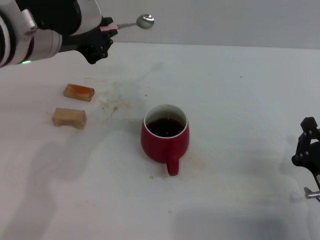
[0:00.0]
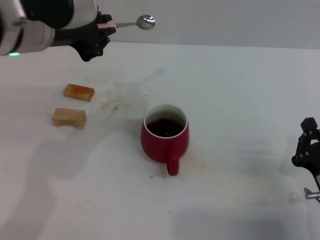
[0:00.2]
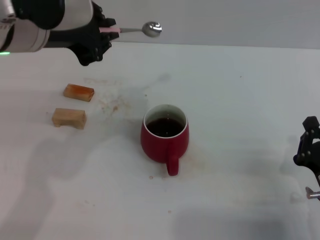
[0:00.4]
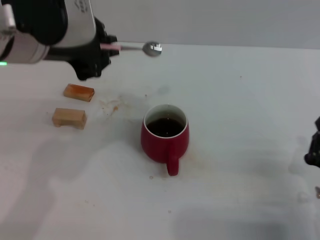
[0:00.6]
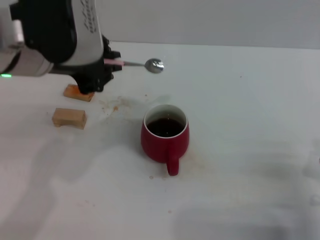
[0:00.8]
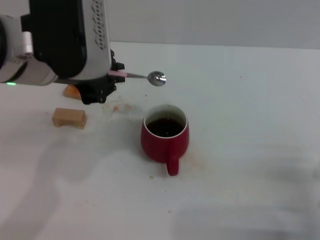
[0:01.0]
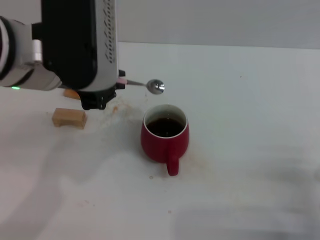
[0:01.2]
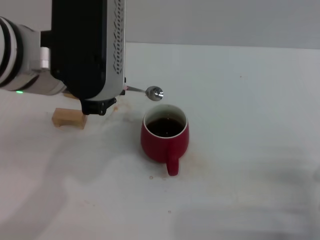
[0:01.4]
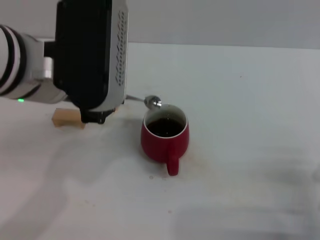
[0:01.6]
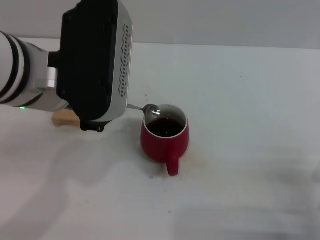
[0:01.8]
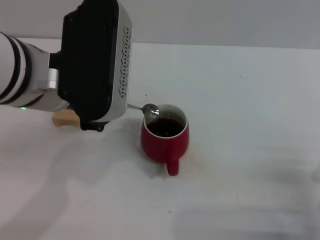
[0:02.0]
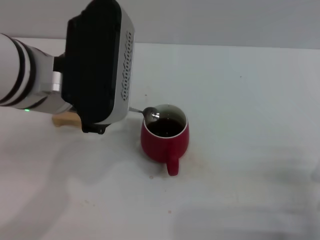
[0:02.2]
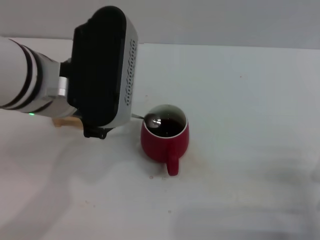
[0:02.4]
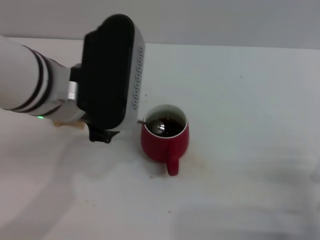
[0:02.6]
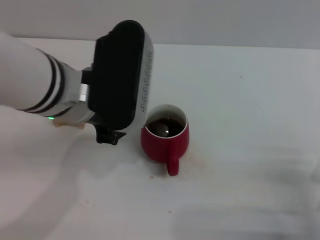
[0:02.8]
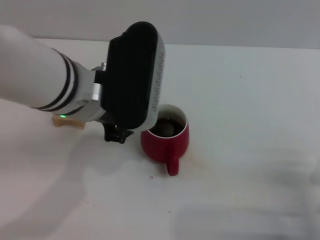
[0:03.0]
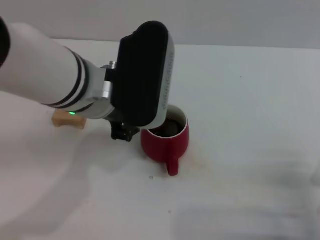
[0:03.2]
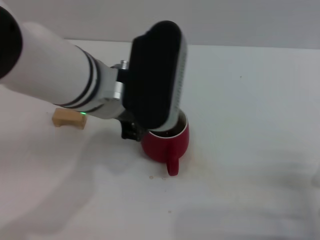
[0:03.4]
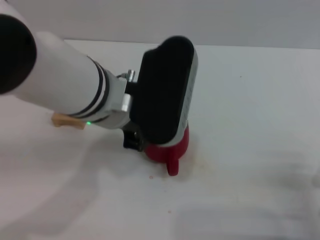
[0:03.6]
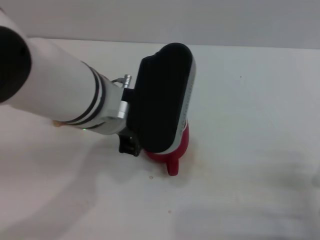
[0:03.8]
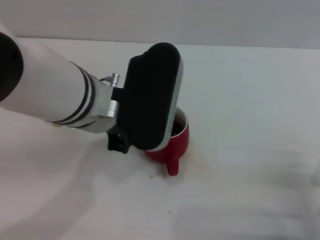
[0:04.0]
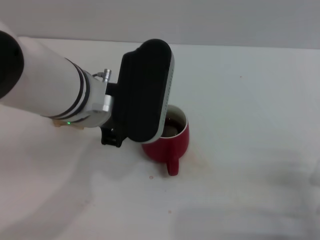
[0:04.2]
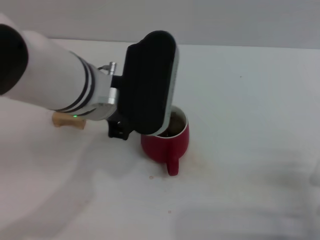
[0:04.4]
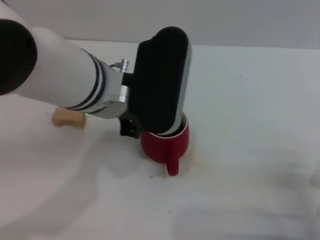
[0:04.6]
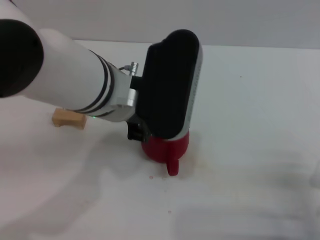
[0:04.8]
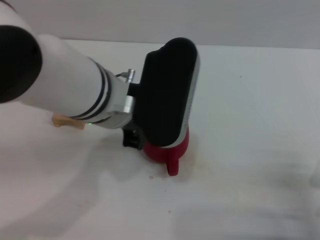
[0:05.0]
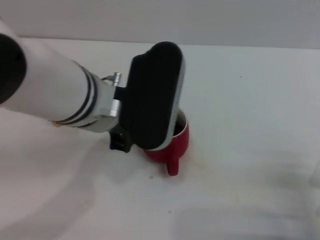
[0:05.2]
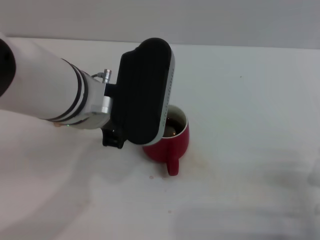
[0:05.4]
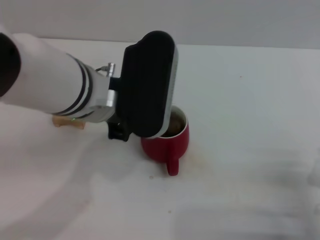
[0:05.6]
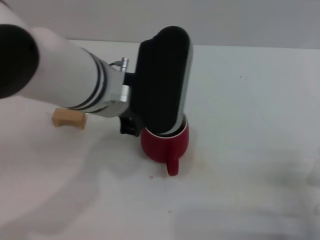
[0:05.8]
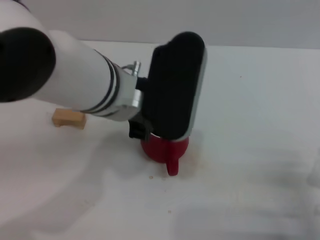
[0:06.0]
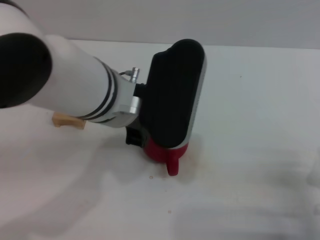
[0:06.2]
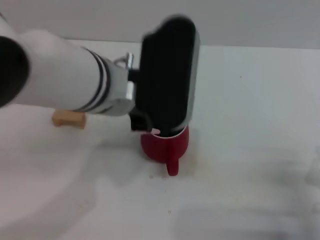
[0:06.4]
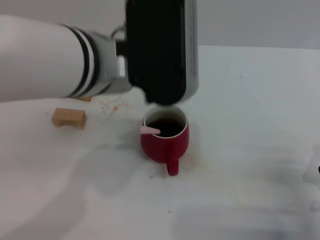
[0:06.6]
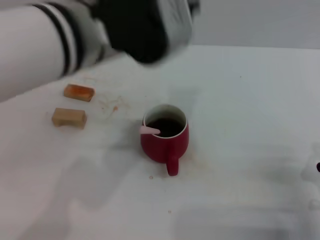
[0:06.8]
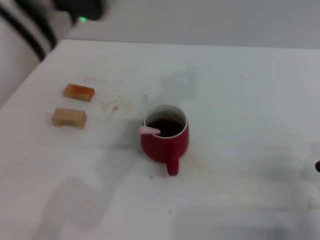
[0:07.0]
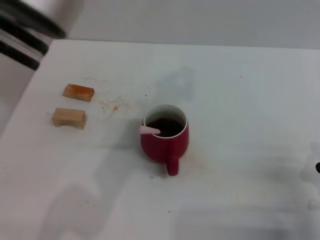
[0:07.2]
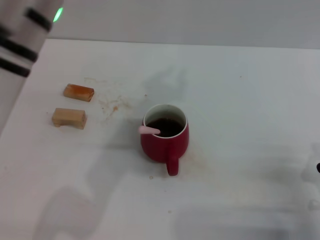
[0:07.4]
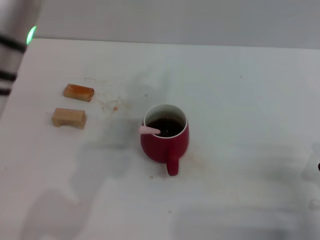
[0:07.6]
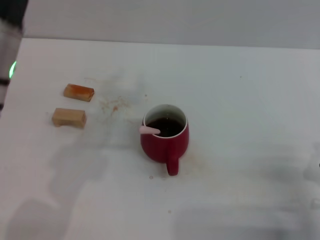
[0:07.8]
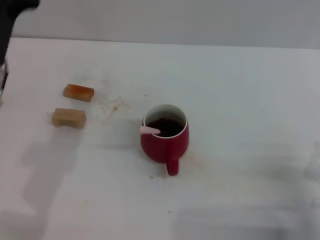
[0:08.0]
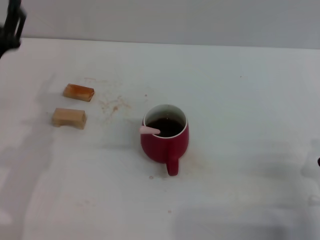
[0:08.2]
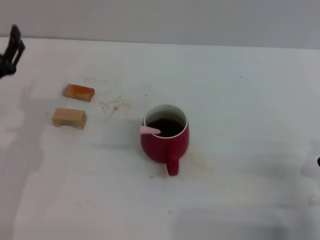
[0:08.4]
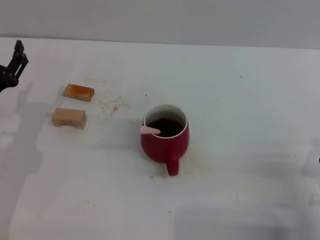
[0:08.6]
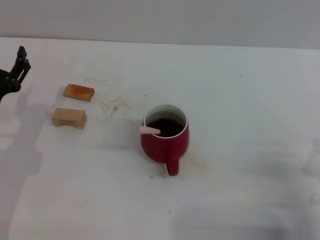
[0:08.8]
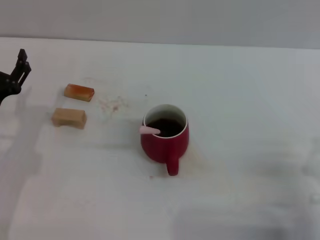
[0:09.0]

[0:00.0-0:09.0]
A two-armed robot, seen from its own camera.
Task of the whole recording: Move the red cup to the center, lift the pink spoon, stir it three times in the cup, and put the spoon into the cup.
Step, 0:00.0 to 0:06.4: Stir the coffee in the cup with the left gripper.
0:00.0 to 0:01.6: The left gripper shifts by approximately 5 cm.
0:01.6 to 0:03.0: The left gripper shifts by some 5 cm.
0:03.0 to 0:06.0: There are only small adjustments of the grippers.
0:06.0 to 0:07.6: The left gripper is displaced to the left and upward by approximately 10 cm.
0:07.6 to 0:09.0: The left gripper heads downward and to the left, covering about 25 cm, and opens up.

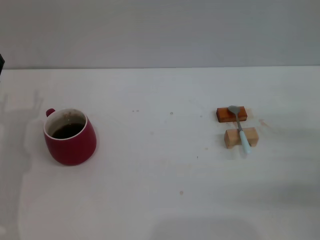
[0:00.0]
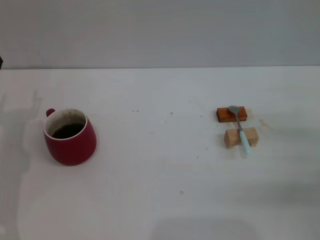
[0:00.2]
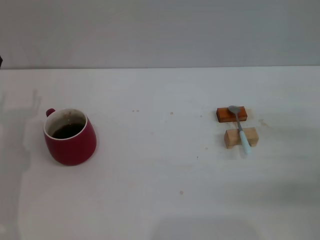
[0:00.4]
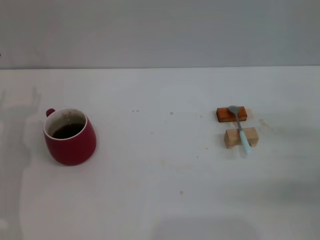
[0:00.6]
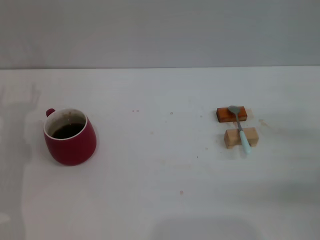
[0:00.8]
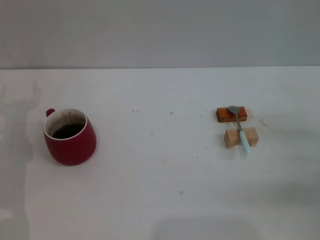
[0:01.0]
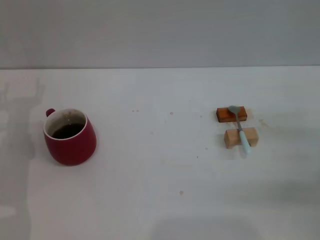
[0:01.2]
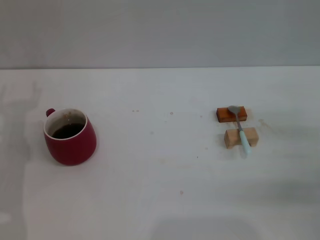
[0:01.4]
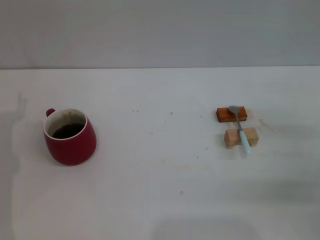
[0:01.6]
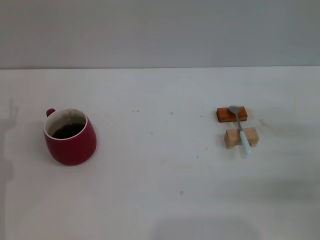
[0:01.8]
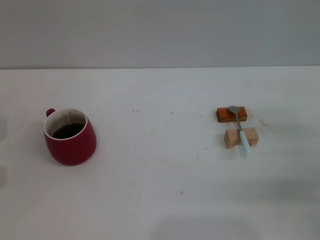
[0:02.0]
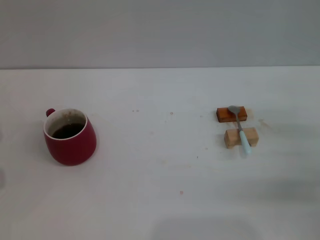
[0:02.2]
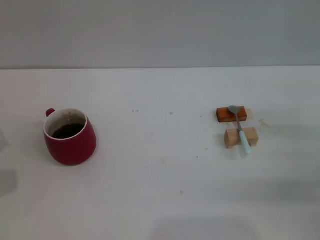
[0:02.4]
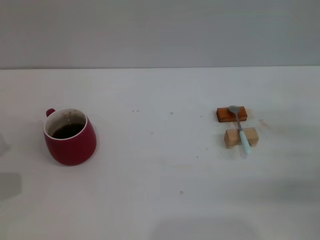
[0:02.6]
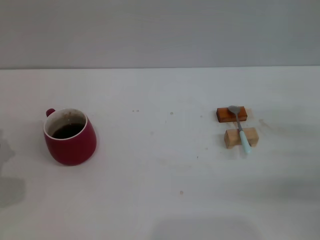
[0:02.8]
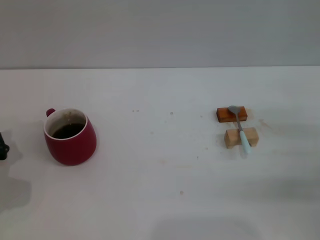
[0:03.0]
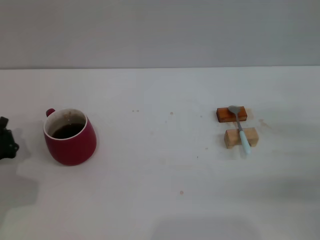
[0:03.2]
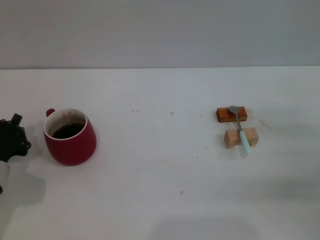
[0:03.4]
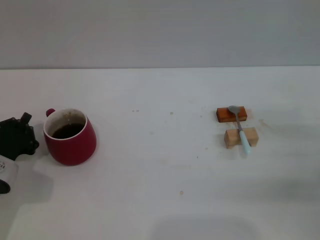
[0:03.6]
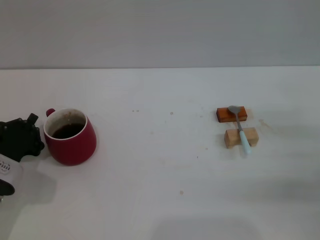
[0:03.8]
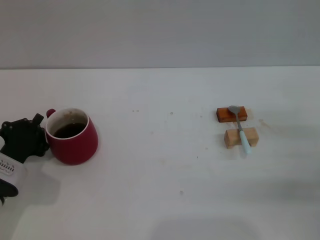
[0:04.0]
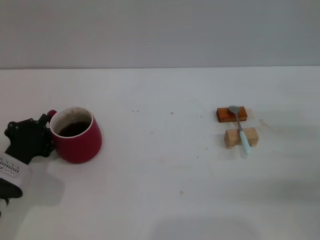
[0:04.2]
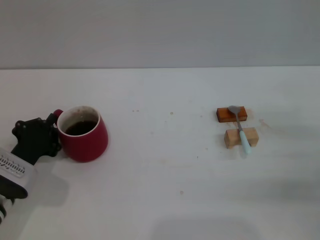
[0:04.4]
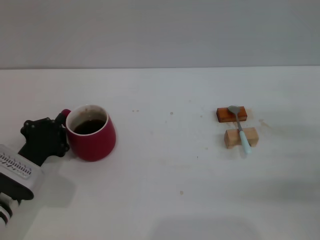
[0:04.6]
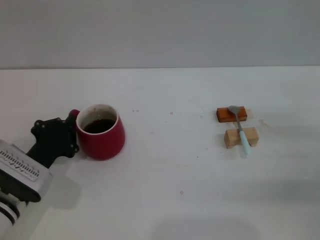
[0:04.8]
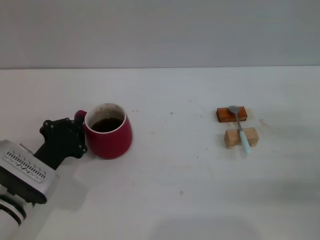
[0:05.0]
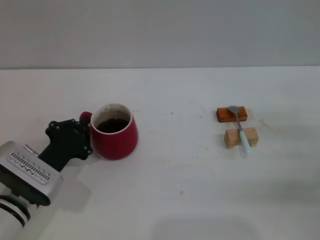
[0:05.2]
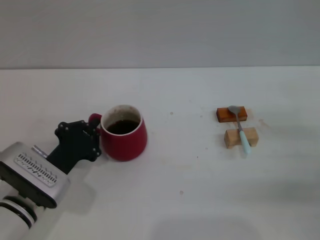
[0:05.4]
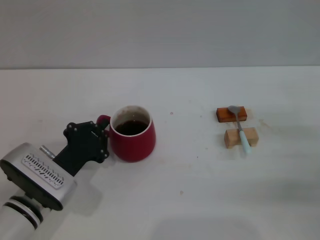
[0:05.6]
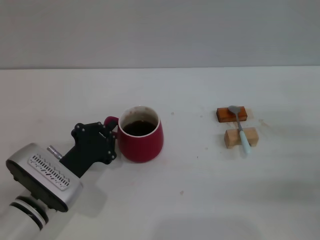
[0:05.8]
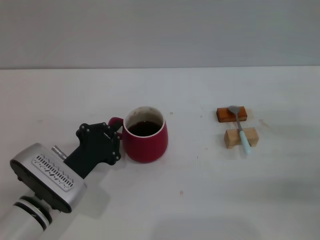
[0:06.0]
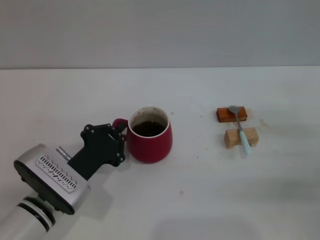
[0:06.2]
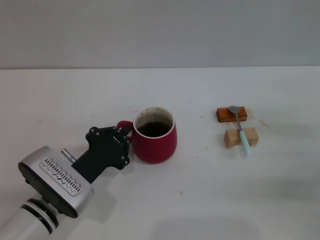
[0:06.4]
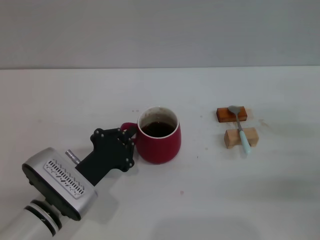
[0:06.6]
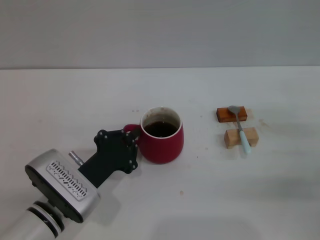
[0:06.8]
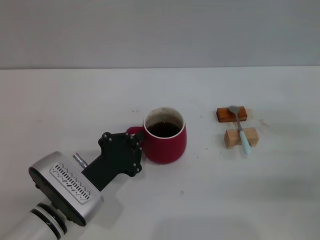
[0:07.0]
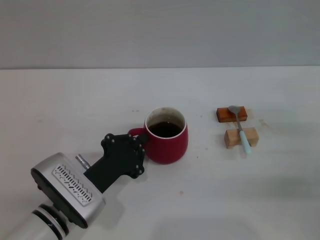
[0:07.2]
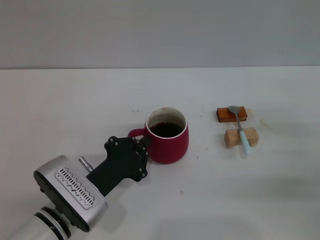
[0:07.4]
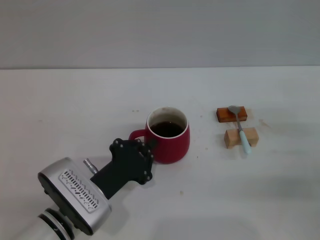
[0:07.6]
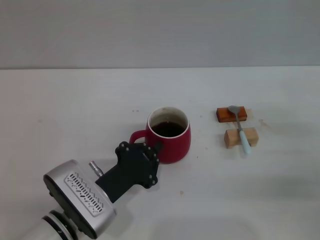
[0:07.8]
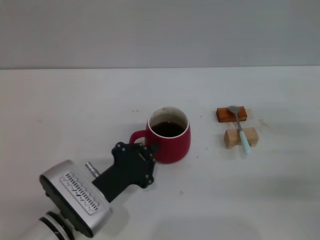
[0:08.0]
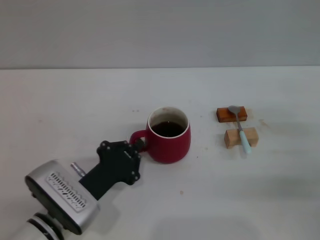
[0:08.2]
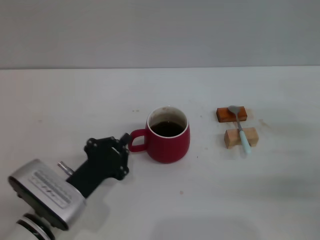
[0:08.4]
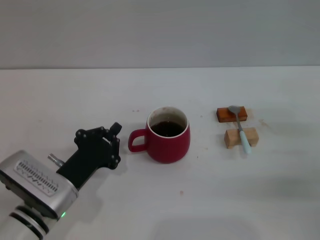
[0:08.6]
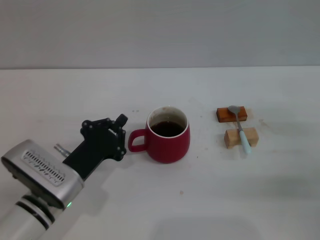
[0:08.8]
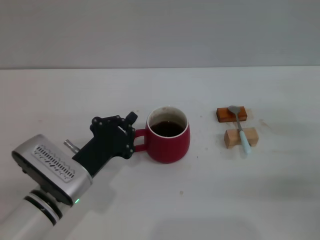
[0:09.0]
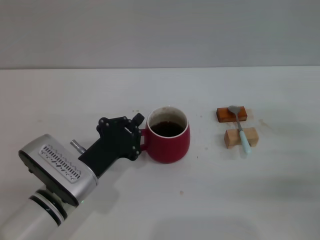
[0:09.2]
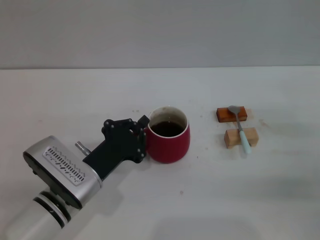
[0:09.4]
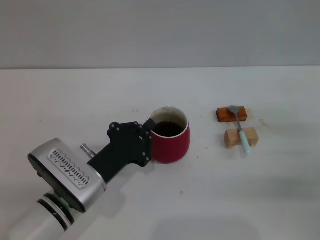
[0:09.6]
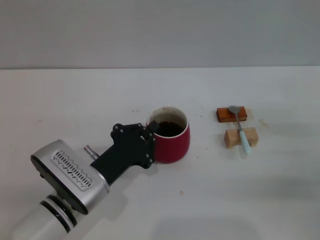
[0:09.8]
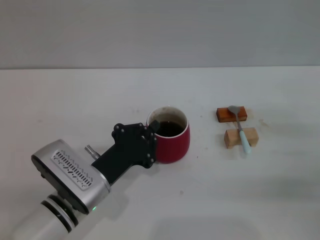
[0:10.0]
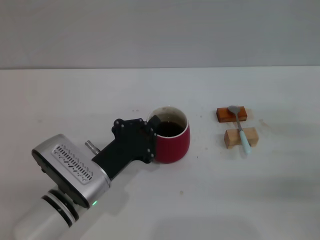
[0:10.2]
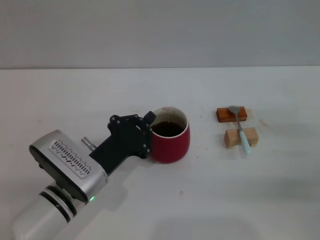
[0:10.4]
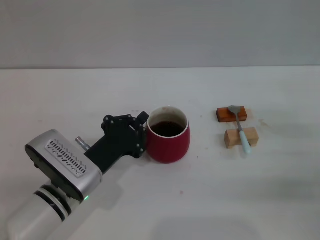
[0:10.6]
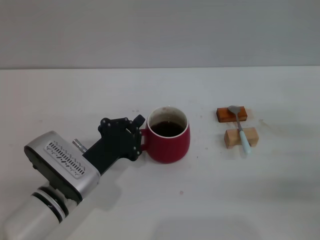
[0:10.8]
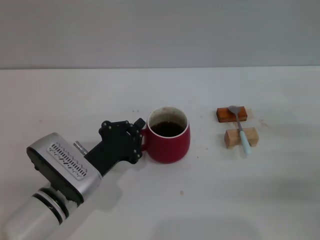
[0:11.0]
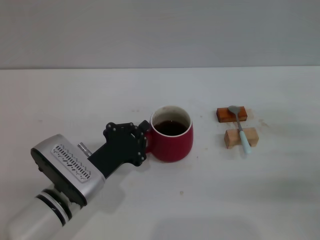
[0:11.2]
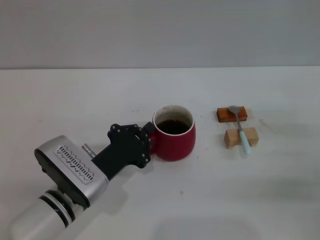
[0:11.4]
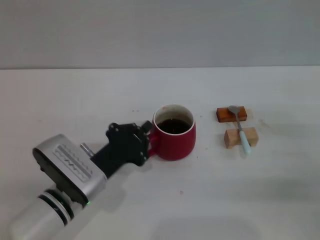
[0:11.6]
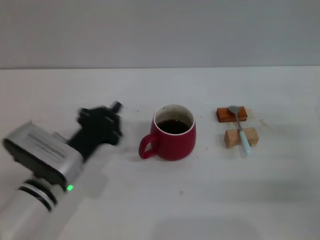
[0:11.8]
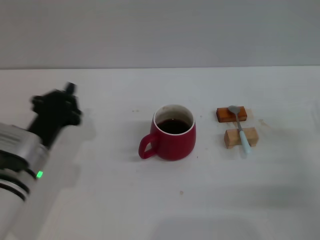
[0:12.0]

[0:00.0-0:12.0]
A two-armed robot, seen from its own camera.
Task of the whole recording: Move the red cup to the center, lift the blue spoon, stir it three times in the cup, and put the spoon into the cup.
Step, 0:00.0 to 0:11.6: Move the cup in the center of the table with left gripper.
0:03.0 to 0:04.4: The left gripper shifts some 5 cm to the right.
0:04.4 to 0:06.0: The left gripper goes some 10 cm to the right.
0:06.0 to 0:10.4: The grippers move only a little.
0:10.4 to 0:12.0: The left gripper goes some 10 cm to the left.

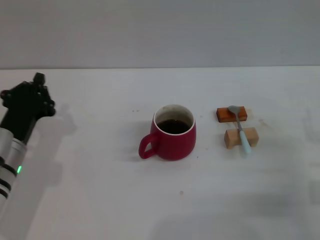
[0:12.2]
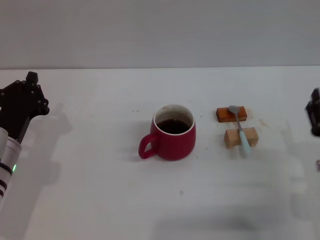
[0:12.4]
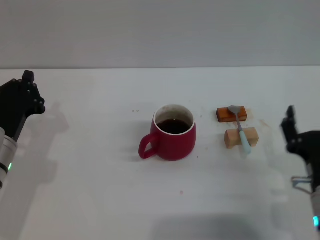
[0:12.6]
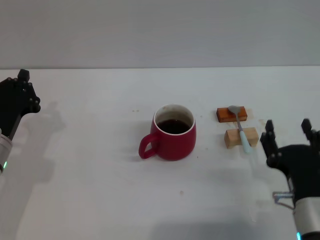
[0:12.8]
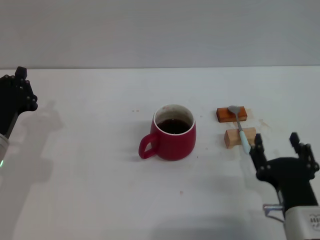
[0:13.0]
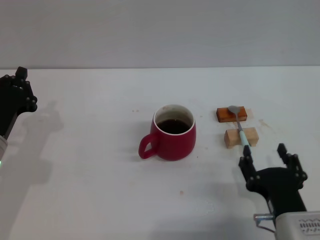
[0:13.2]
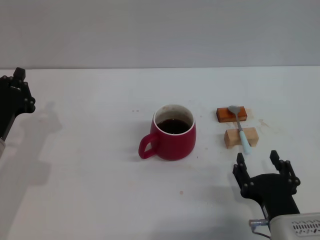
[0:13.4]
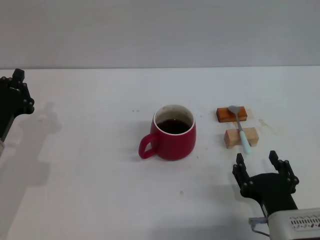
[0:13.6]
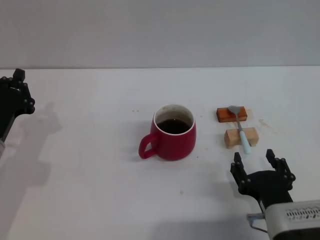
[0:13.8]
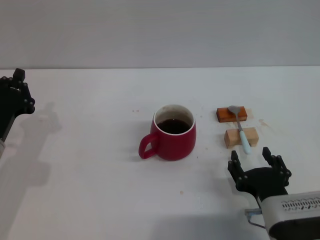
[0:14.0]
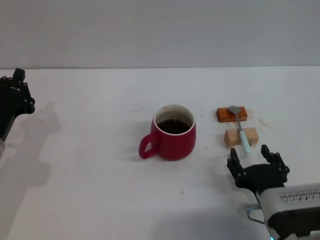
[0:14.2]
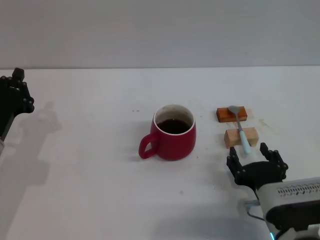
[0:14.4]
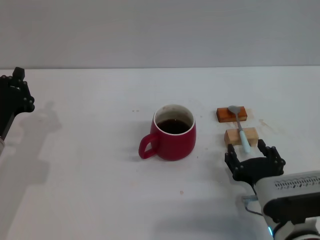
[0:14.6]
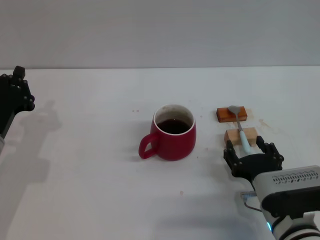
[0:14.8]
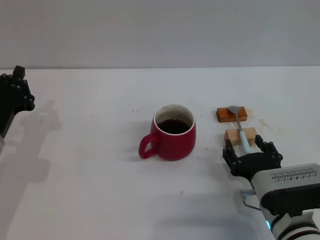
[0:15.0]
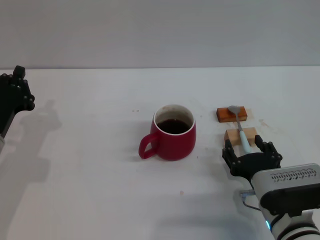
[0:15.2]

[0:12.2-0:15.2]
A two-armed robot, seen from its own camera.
Task of the whole recording: Move the red cup to the center, lift the blue spoon, stir it three times in the cup, and put the spoon into the cup.
0:12.2 to 0:13.8: The right gripper shifts approximately 15 cm to the left and backward.
0:13.8 to 0:15.2: The grippers make only small movements.
